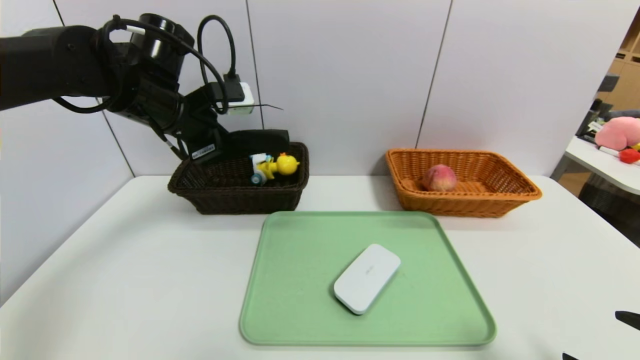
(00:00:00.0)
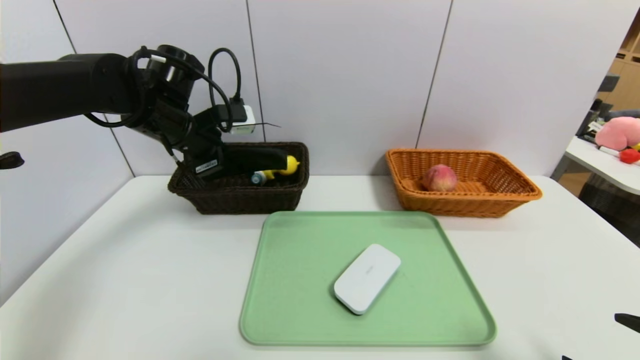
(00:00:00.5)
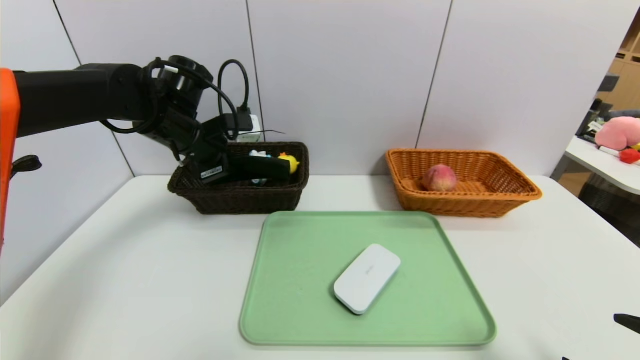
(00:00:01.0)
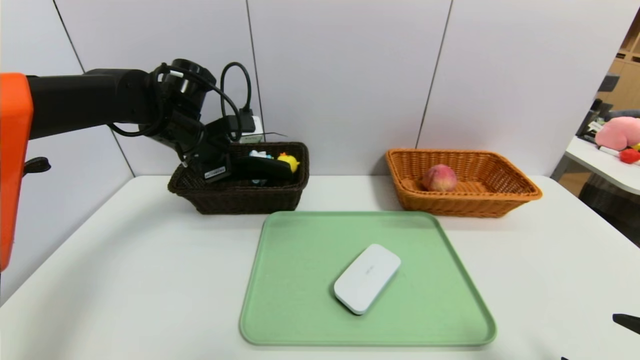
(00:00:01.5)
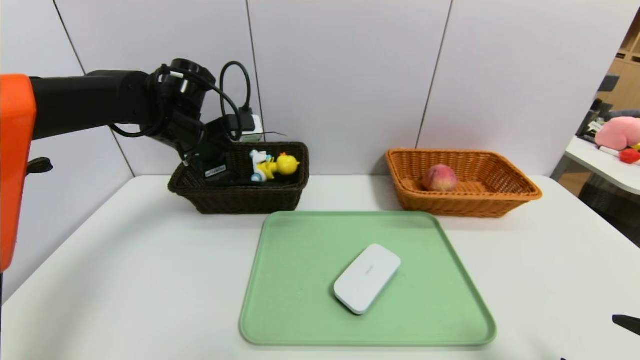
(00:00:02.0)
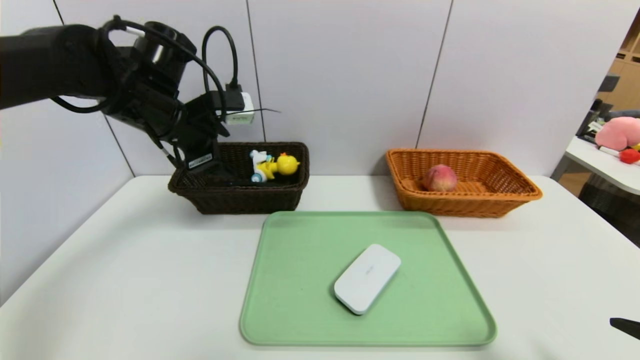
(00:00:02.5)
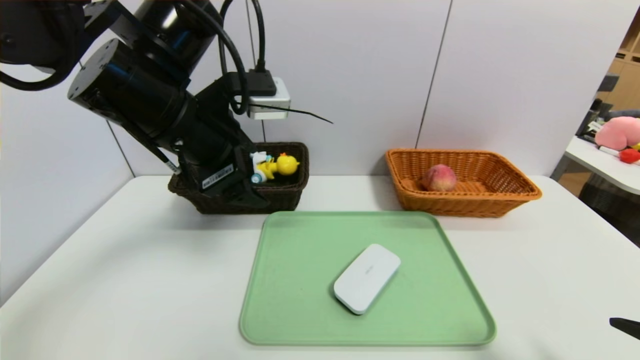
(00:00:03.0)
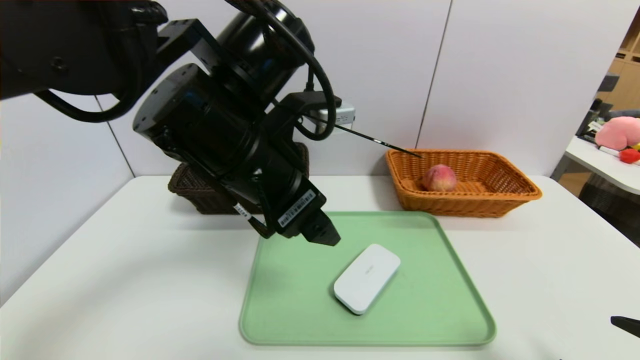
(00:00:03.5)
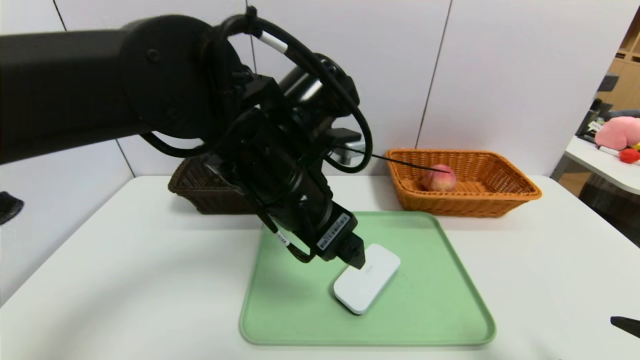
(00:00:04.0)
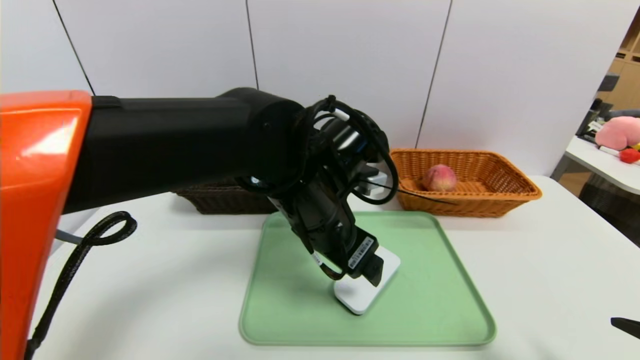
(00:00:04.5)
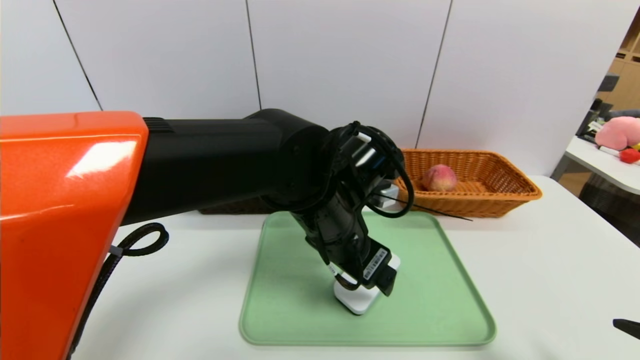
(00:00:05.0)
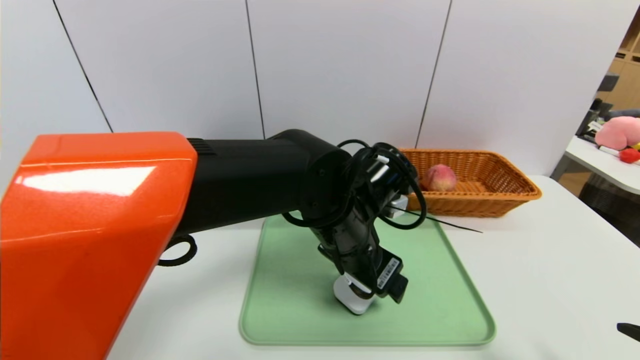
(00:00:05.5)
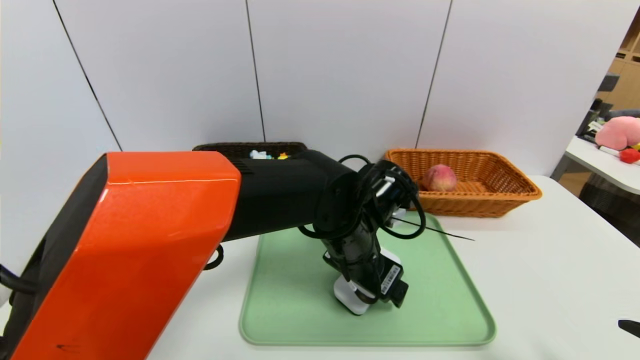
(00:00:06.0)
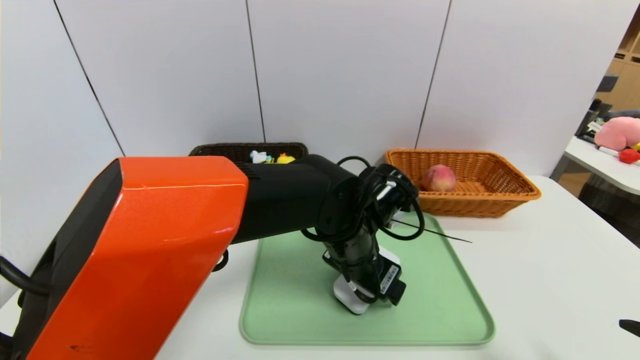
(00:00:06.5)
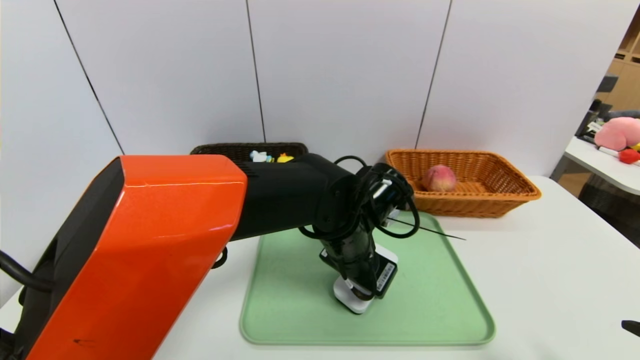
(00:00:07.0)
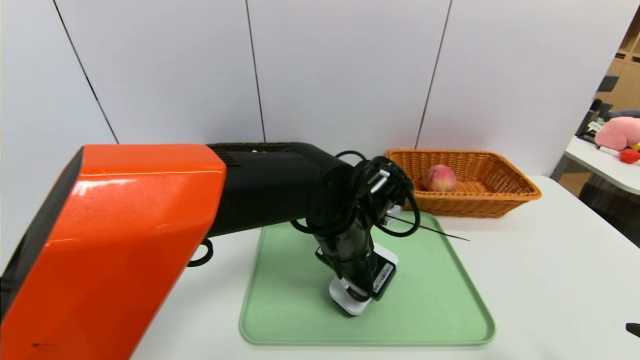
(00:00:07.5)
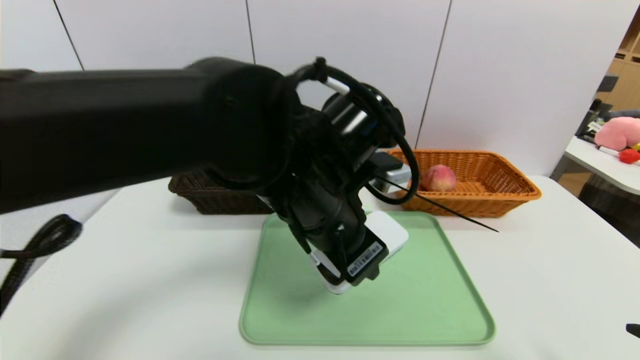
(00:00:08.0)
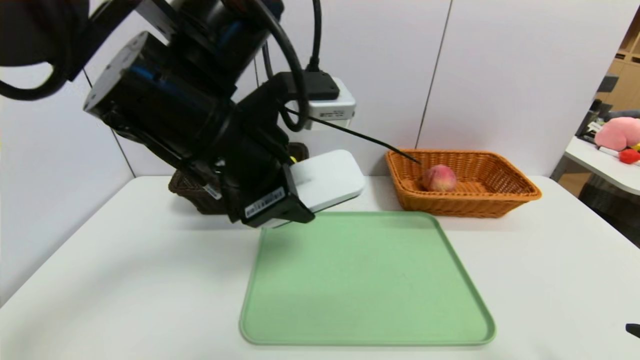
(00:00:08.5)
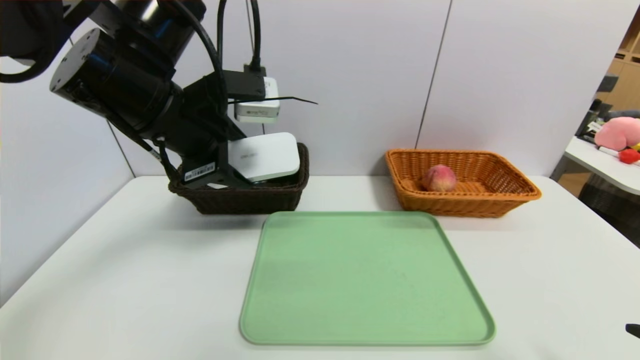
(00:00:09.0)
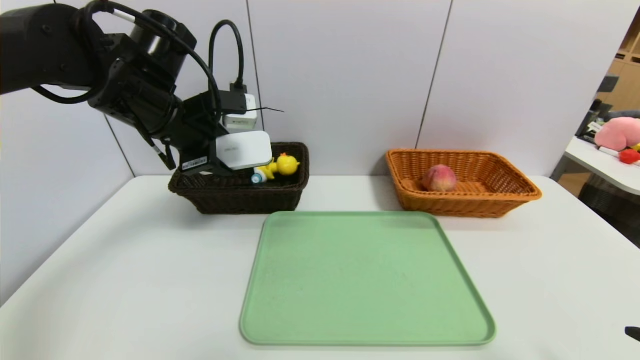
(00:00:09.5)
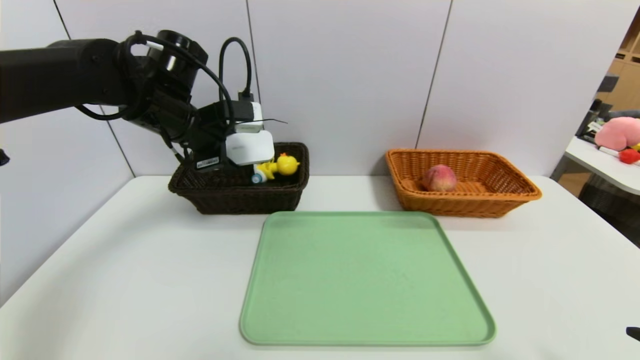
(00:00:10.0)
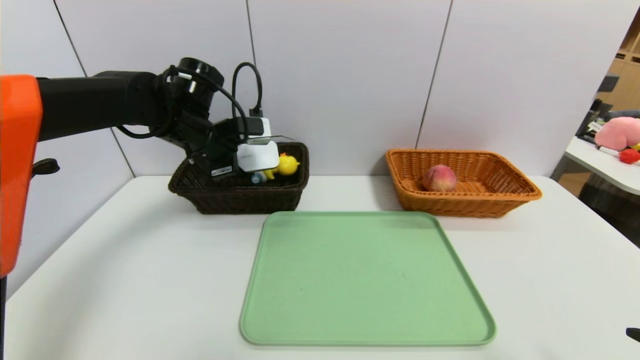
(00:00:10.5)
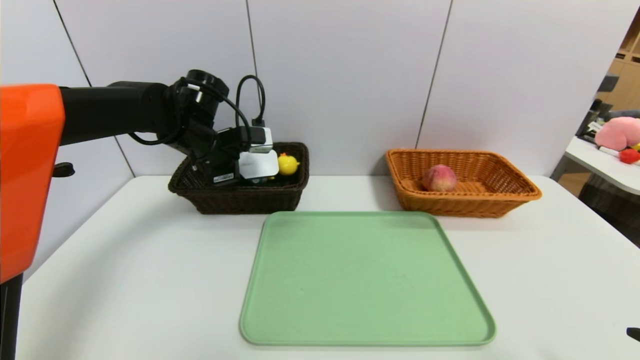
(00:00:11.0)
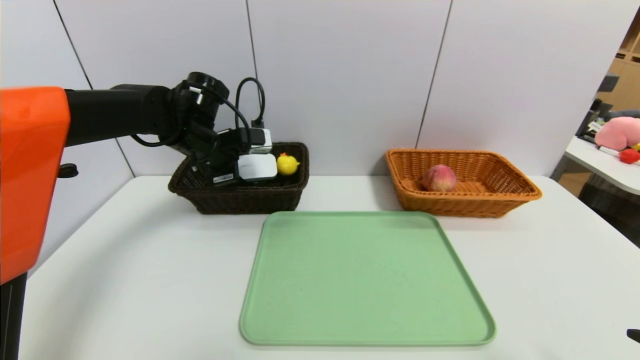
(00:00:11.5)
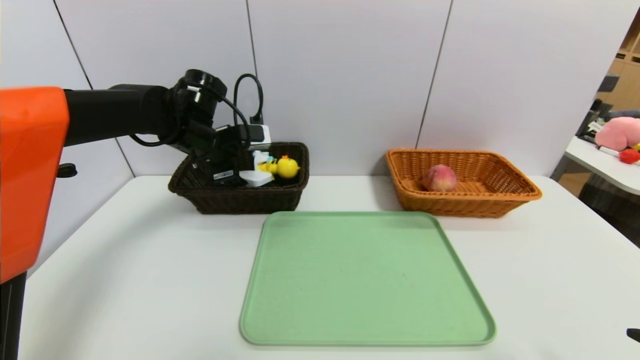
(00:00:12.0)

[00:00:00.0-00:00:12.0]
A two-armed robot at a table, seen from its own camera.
Task of the whole recording: place the food in the right basket with the right gripper, and place the non food items in the left basket with the left gripper.
Step, 00:00:00.0 to 00:00:03.0: Grasp the glasses case and put it in the left basket.
00:00:00.0 to 00:00:02.0: The left gripper moves some 5 cm, and opens its fingers.
00:00:02.0 to 00:00:04.0: The left gripper travels backward and to the right by approximately 25 cm, and opens up.
00:00:04.0 to 00:00:06.0: The left gripper moves downward and to the right, approximately 15 cm.
00:00:06.0 to 00:00:08.0: The left gripper goes roughly 10 cm upward and to the left, and closes its fingers.
00:00:08.0 to 00:00:10.0: The left gripper travels to the left and forward by some 25 cm.
00:00:10.0 to 00:00:12.0: The left gripper moves about 5 cm, and opens.

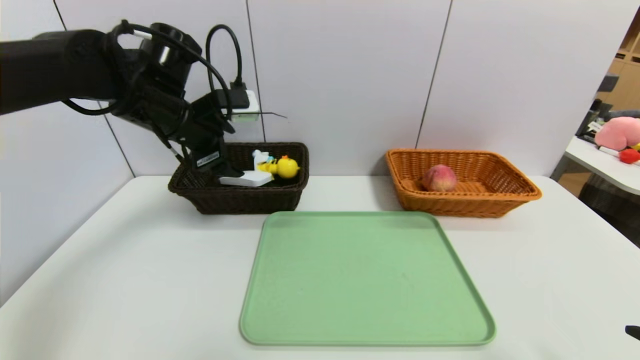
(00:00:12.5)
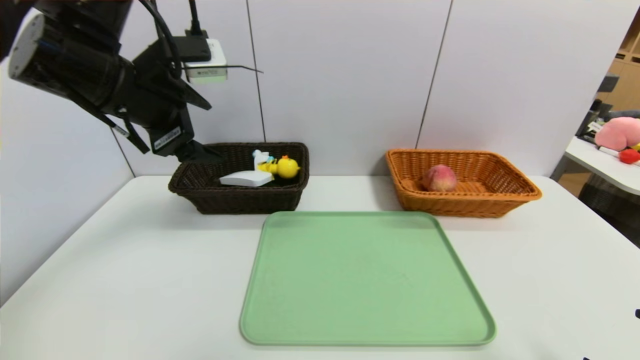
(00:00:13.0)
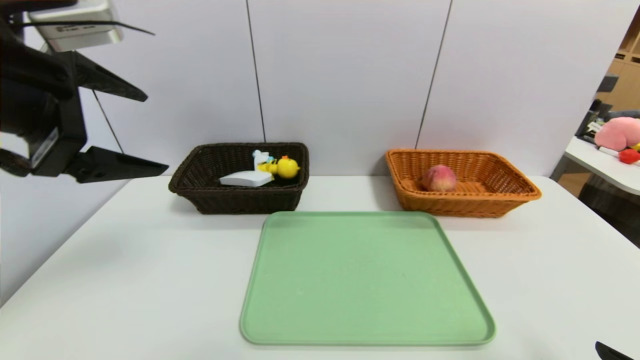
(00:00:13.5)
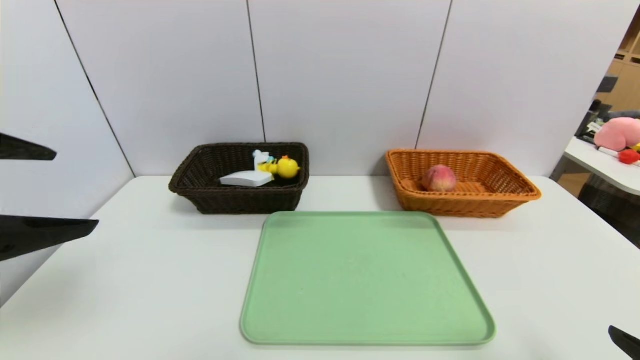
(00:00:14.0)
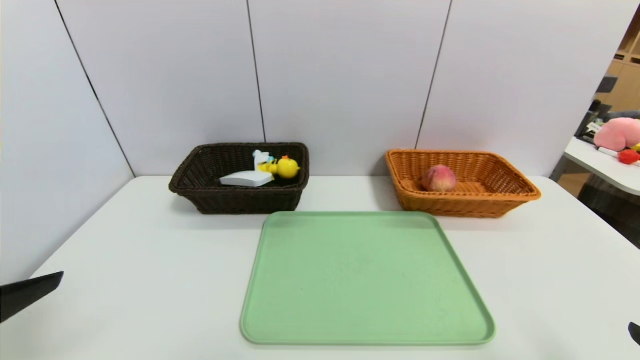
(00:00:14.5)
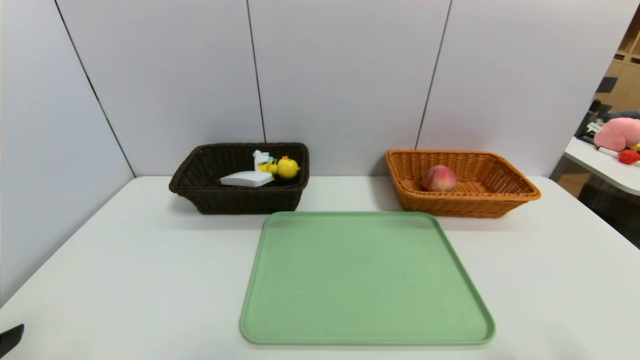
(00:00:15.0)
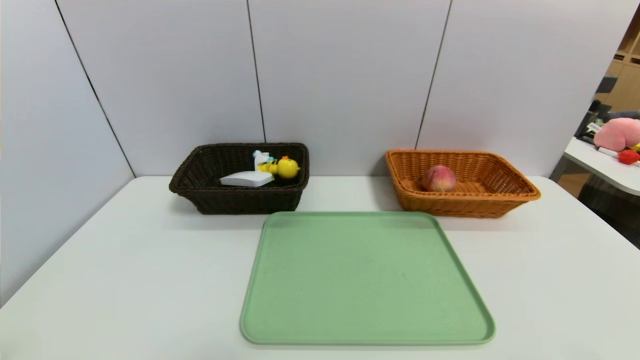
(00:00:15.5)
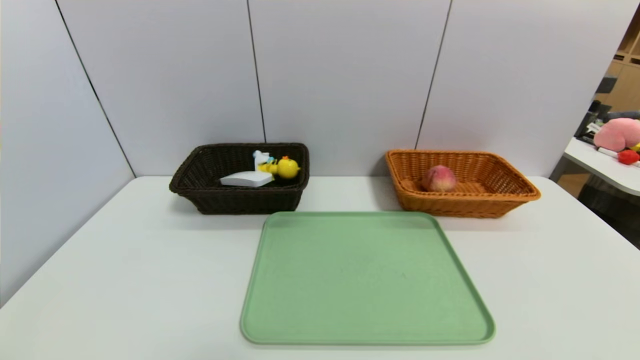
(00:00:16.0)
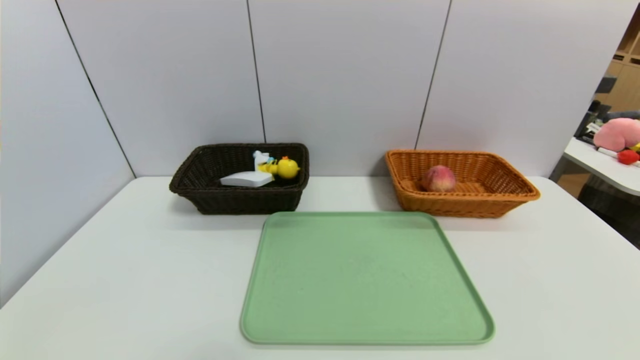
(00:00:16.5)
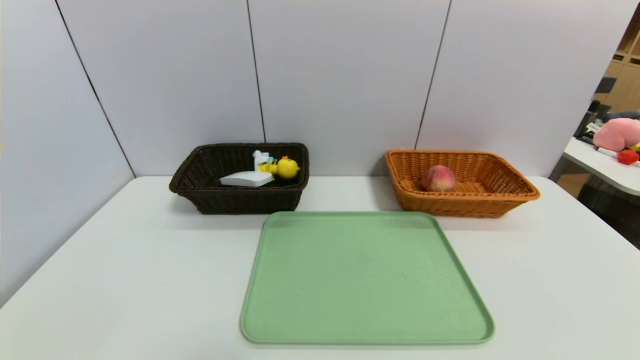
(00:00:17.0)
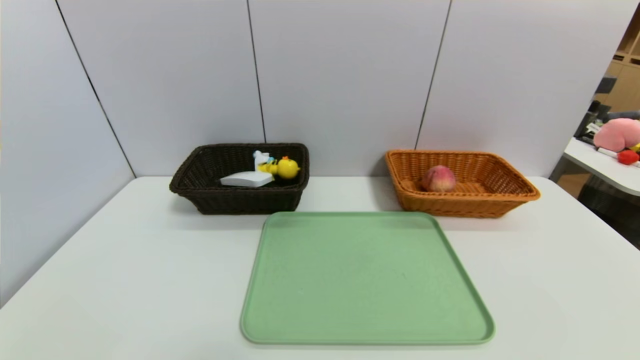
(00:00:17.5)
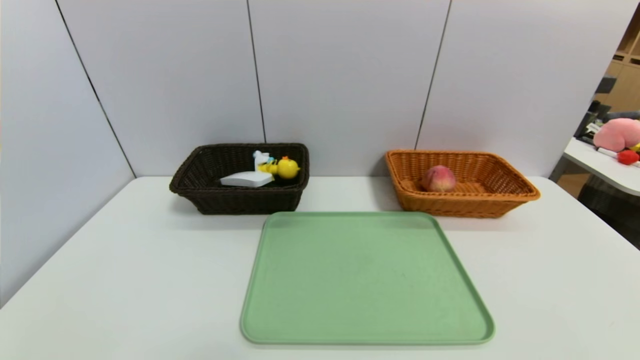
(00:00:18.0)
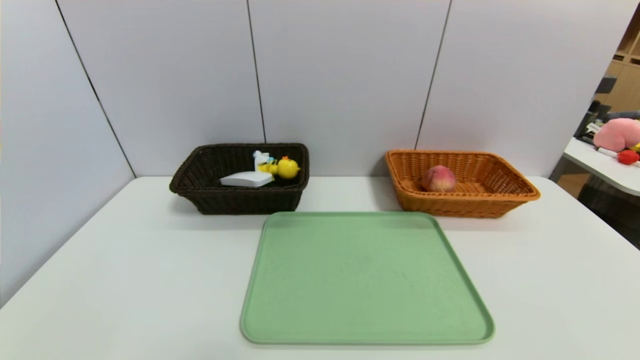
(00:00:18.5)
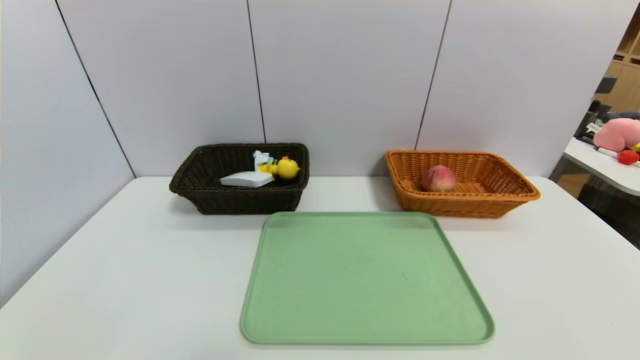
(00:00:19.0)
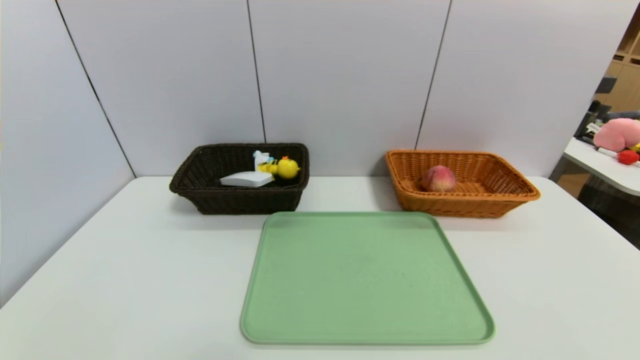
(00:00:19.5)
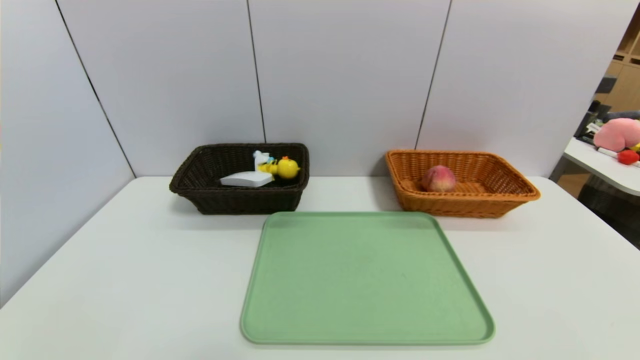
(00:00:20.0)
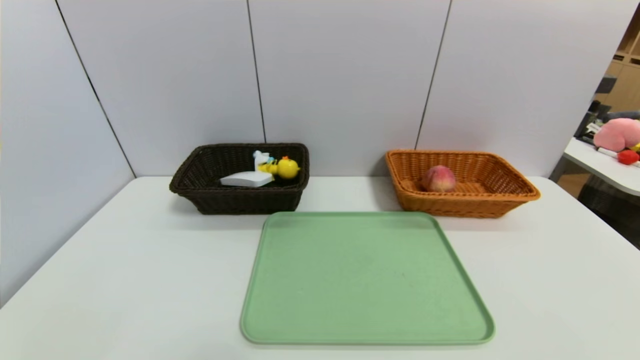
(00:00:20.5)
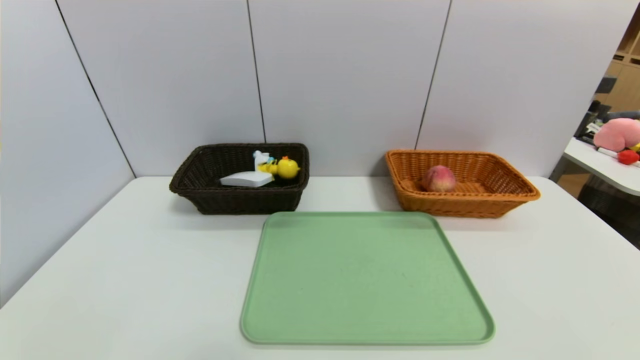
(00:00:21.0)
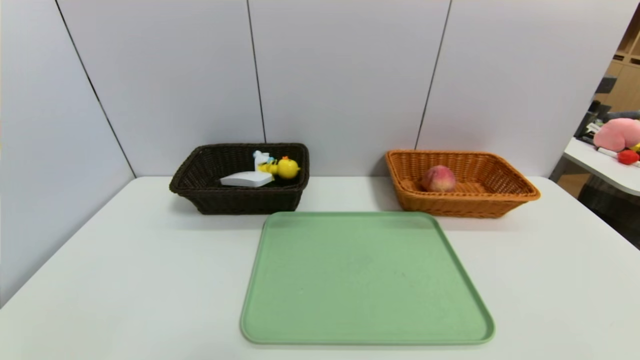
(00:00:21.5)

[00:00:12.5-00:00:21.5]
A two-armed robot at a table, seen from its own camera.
Task of the whole recording: place the food in the right basket with the right gripper, and place the non food items in the left basket with the left gripper.
00:00:12.5 to 00:00:14.5: The left gripper moves backward, about 30 cm.
00:00:14.5 to 00:00:17.0: The right gripper travels downward by roughly 5 cm. Meanwhile the left gripper shifts some 15 cm downward and backward.
